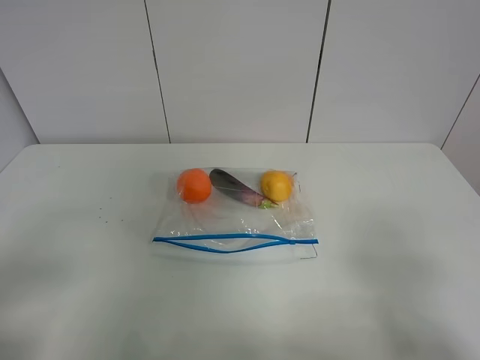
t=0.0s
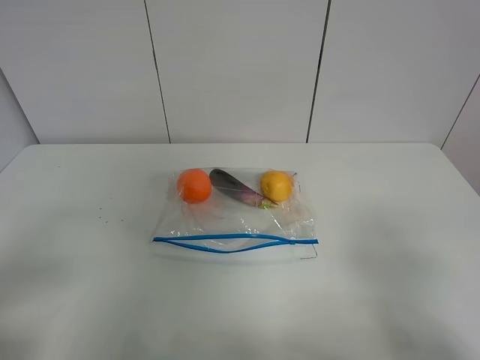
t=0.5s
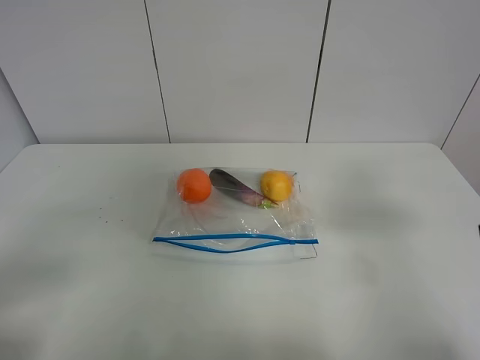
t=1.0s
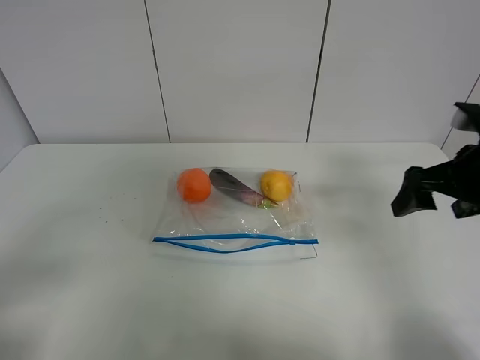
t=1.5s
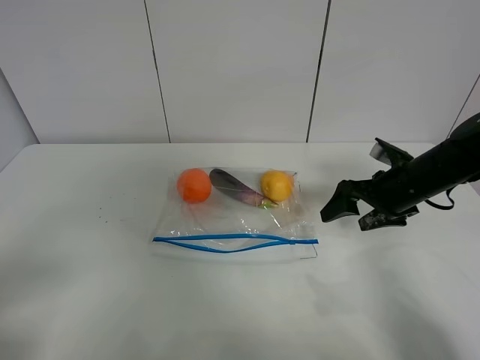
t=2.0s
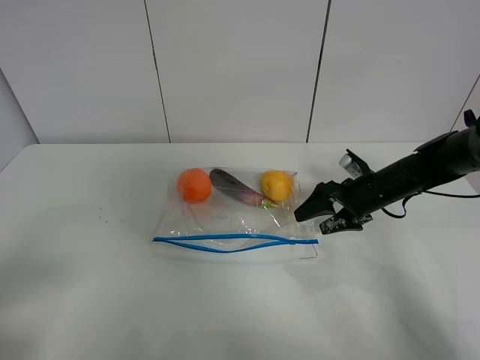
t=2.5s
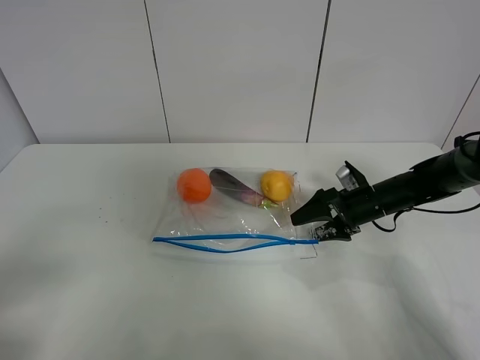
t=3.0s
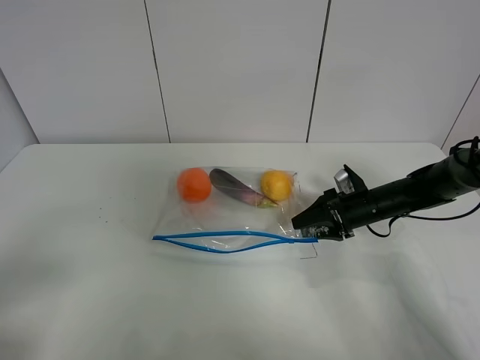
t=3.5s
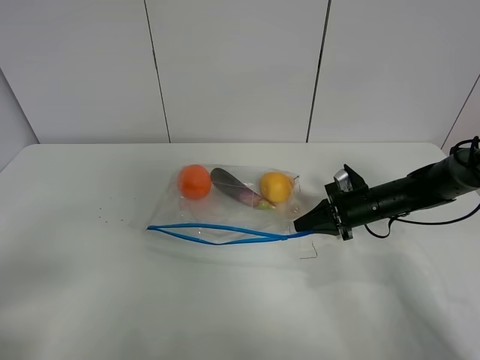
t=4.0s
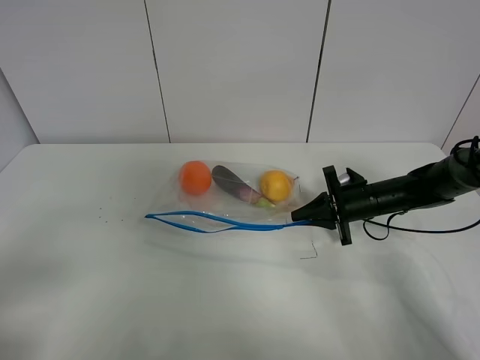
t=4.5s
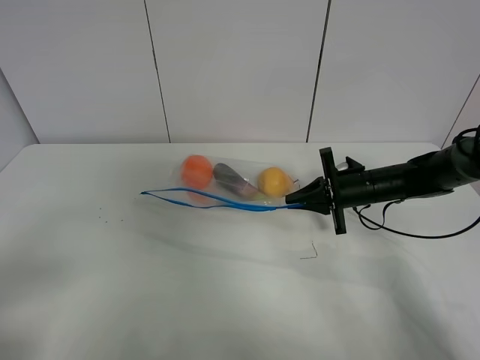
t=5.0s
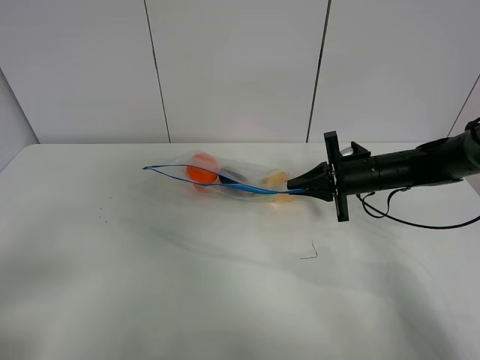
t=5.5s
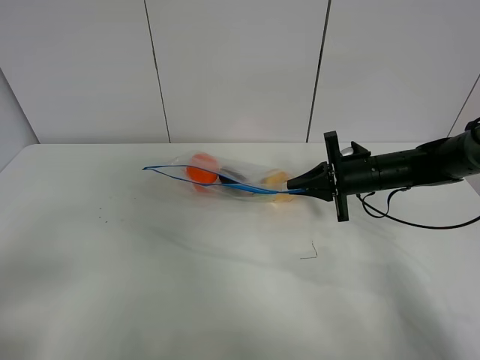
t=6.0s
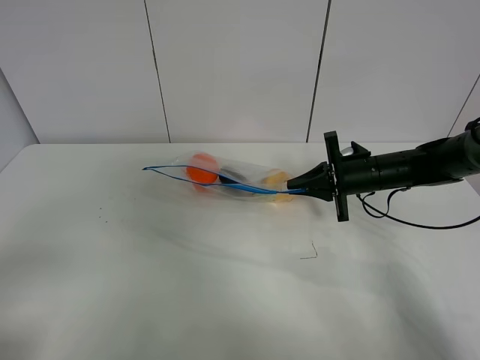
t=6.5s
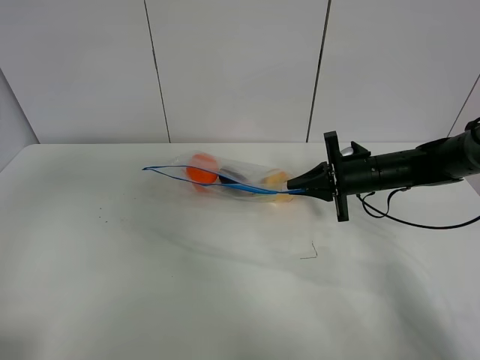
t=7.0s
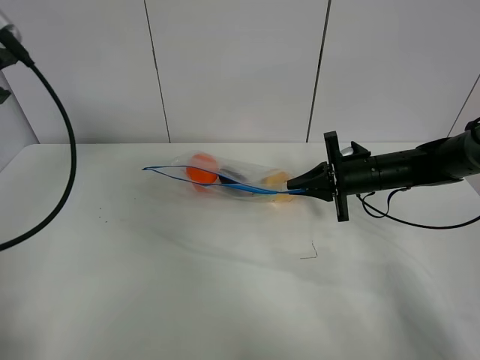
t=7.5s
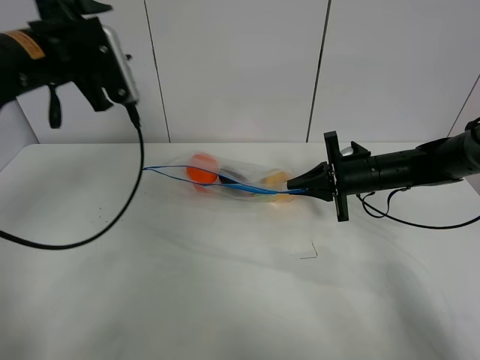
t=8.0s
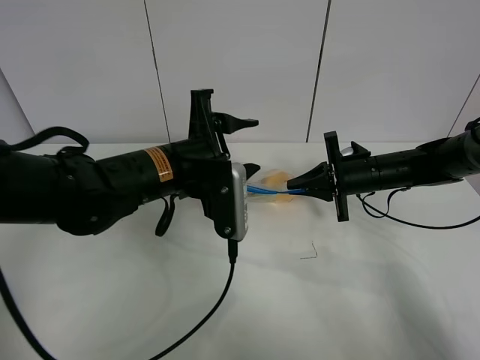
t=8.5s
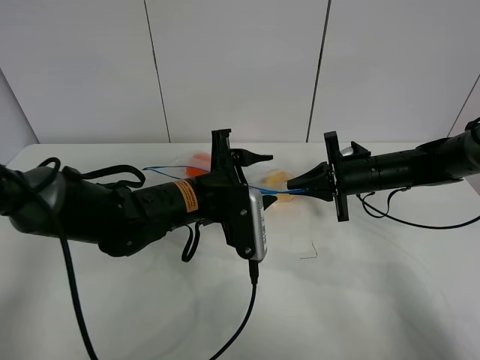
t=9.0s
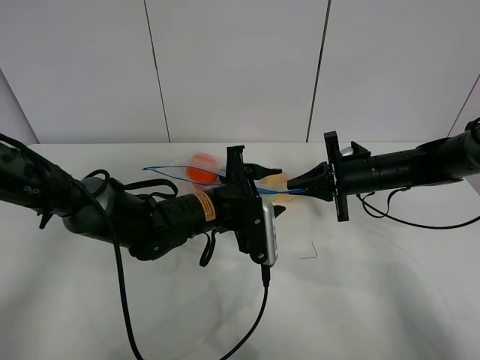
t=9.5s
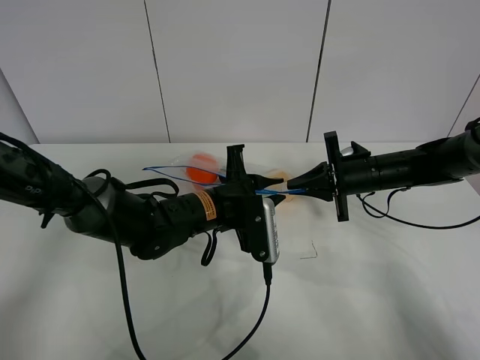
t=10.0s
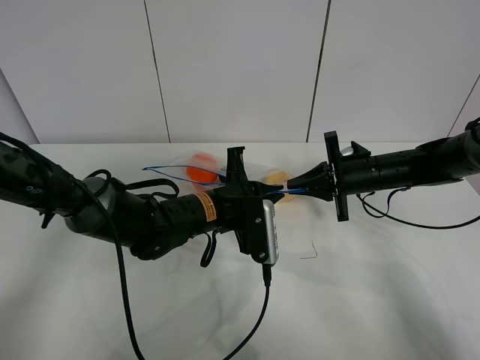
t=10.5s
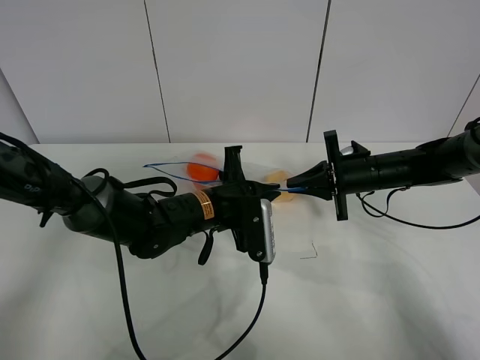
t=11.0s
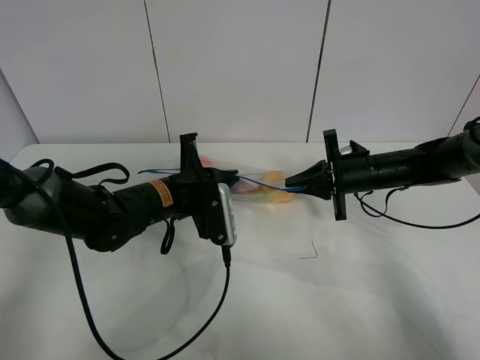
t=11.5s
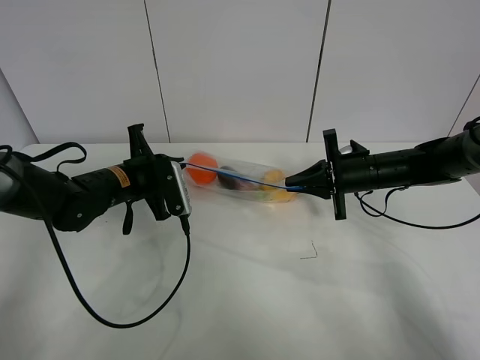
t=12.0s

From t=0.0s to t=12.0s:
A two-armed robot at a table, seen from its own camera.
Step, from t=0.0s to t=3.5s: Grasp the fruit bag with right gripper.
Step, from t=4.0s to t=5.5s: Lift the fruit bag with your right gripper.
From t=0.0s to t=2.0s: The right gripper goes approximately 30 cm forward.
From t=2.0s to t=4.0s: The right gripper travels downward by about 10 cm, and closes up.
From t=4.0s to t=6.0s: The right gripper shifts approximately 5 cm upward.
From t=6.0s to t=8.0s: The left gripper travels forward by some 30 cm.
From t=8.0s to t=10.0s: The left gripper heads downward and to the right, covering roughly 25 cm, and closes its fingers.
From t=10.0s to t=12.0s: The left gripper shifts roughly 15 cm to the left, and closes up.

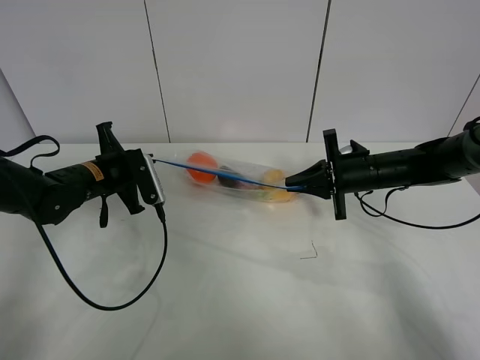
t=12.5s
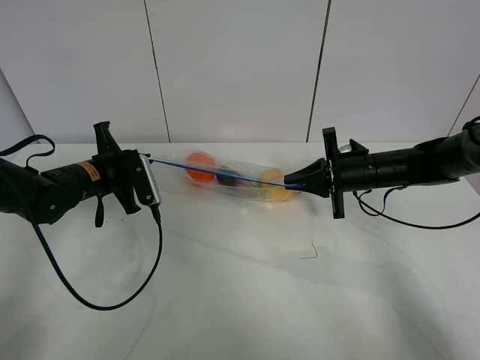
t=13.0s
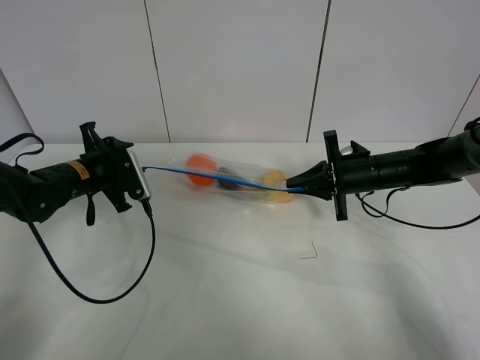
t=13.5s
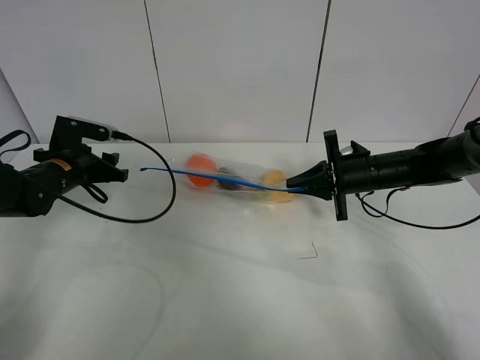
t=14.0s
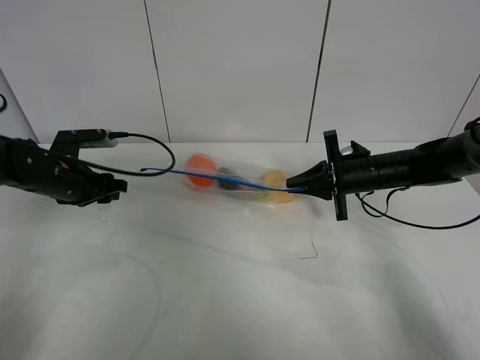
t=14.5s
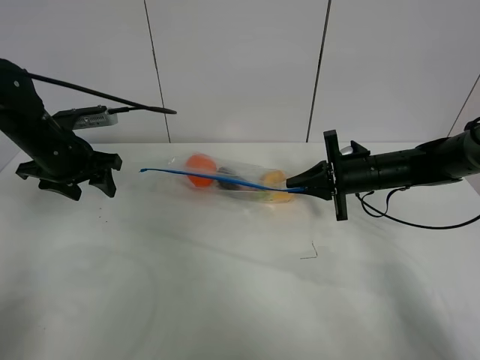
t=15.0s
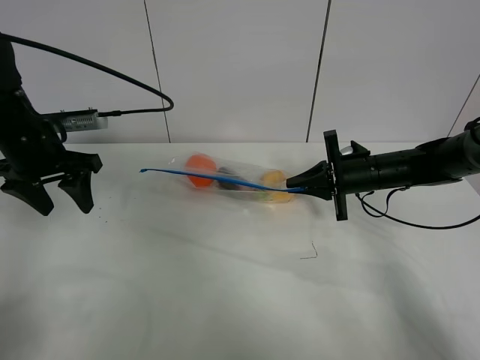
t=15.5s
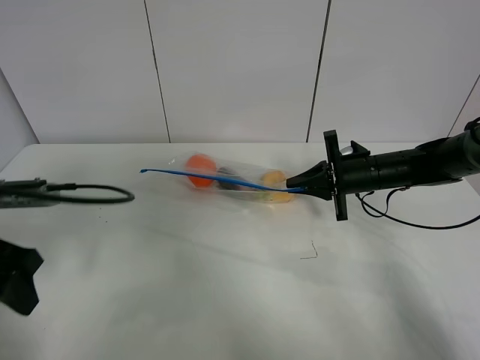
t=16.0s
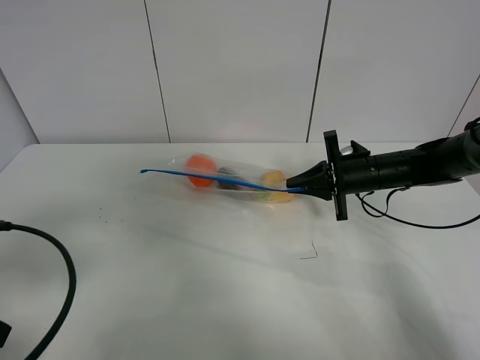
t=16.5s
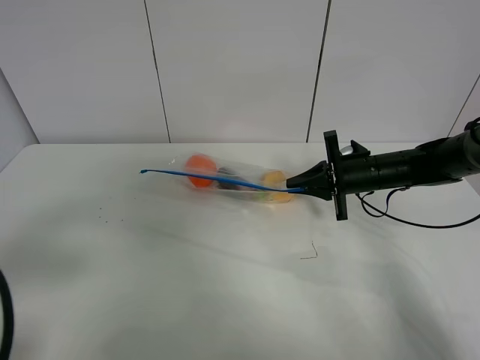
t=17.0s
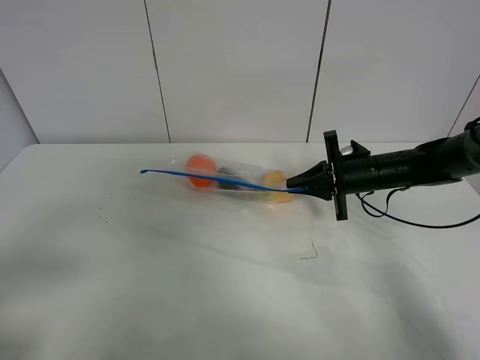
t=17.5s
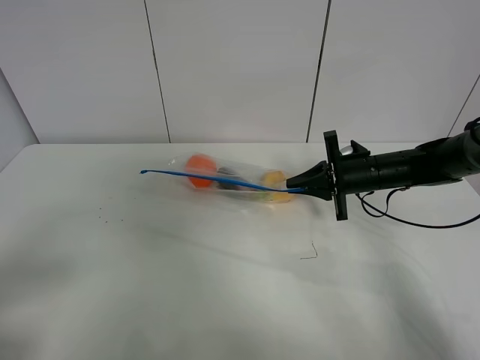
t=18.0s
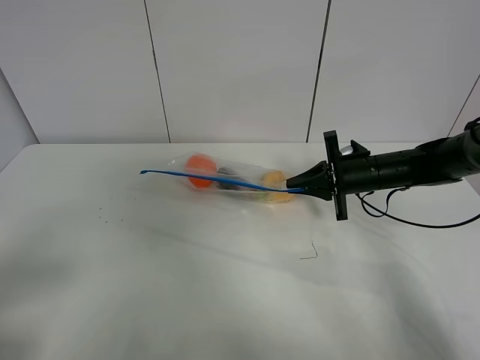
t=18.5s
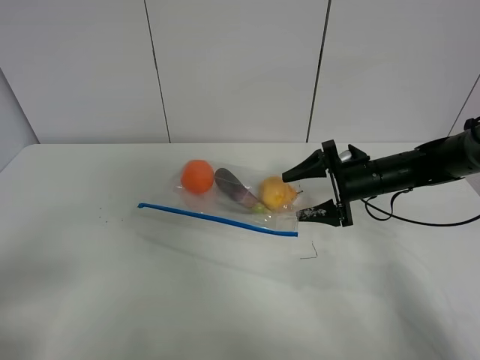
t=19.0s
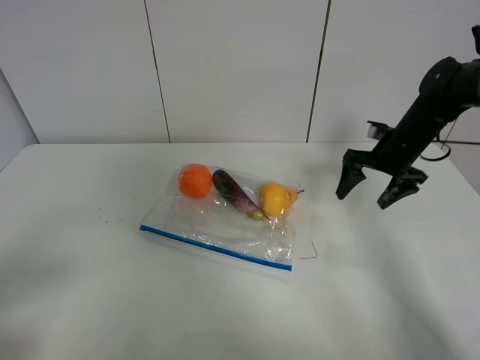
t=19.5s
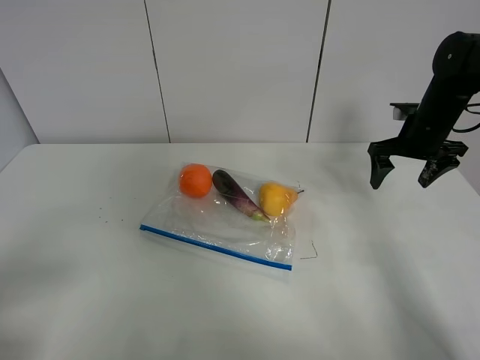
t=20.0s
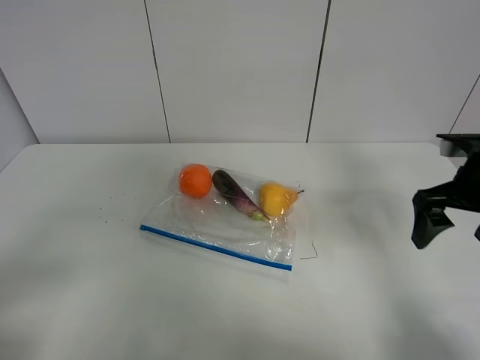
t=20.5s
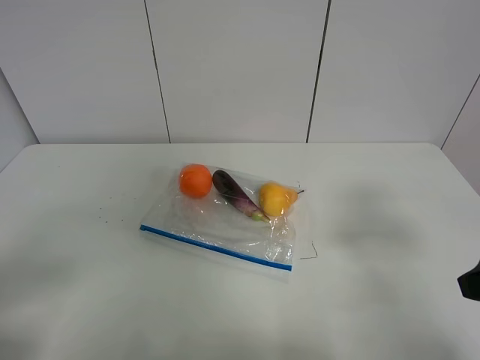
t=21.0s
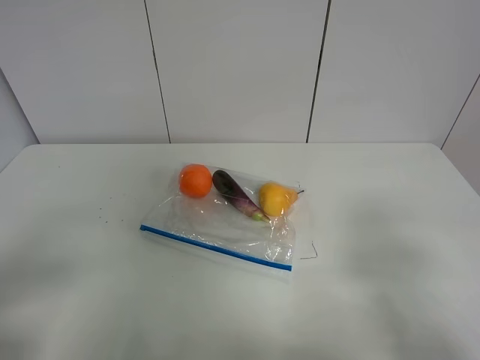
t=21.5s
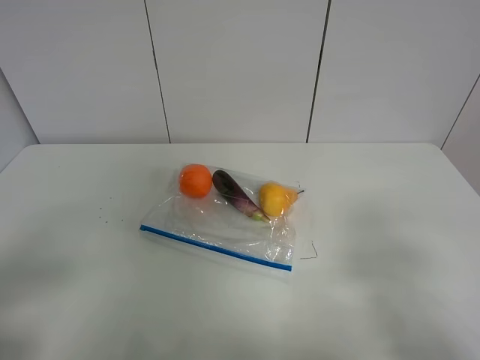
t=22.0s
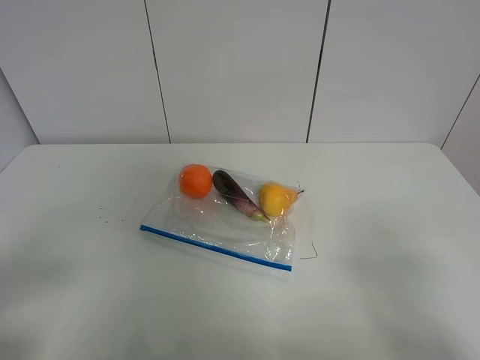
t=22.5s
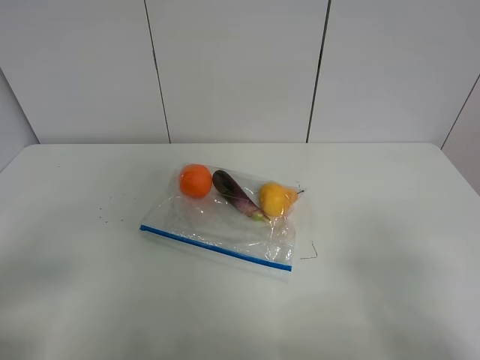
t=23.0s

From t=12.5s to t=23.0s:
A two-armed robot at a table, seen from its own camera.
From t=12.5s to t=14.5s: The left gripper goes roughly 5 cm to the left, and opens up.
From t=14.5s to t=16.5s: The left gripper goes some 25 cm backward.
From t=16.5s to t=19.0s: The right gripper opens up, while the left gripper shifts approximately 10 cm backward.
From t=19.0s to t=21.0s: The right gripper moves backward and upward, some 30 cm.

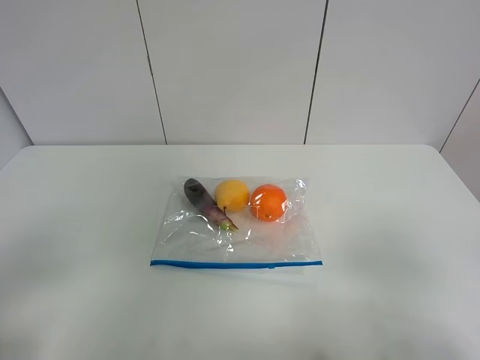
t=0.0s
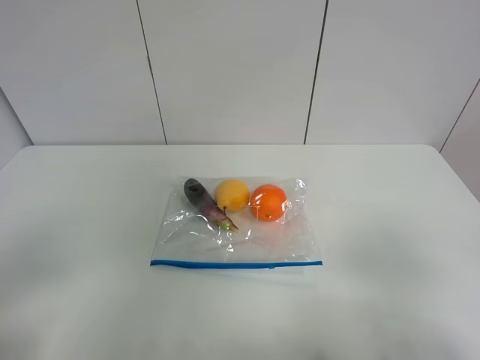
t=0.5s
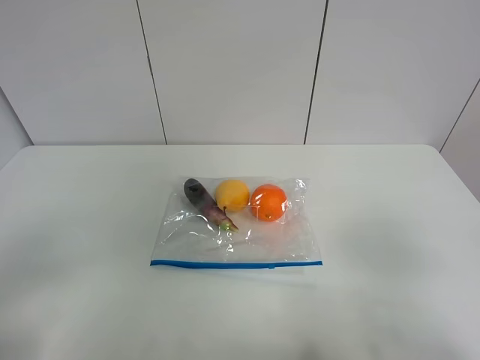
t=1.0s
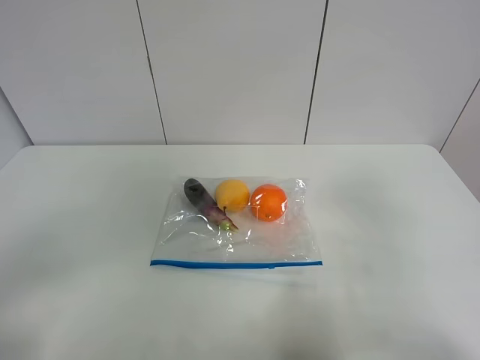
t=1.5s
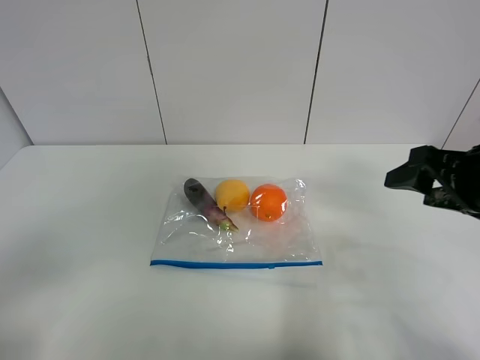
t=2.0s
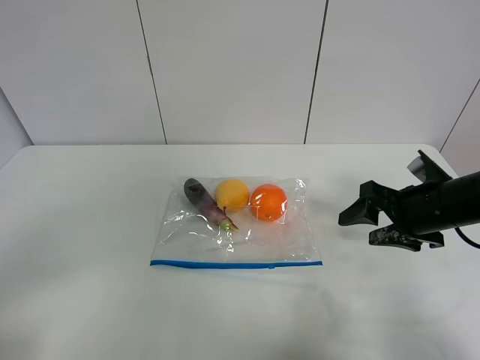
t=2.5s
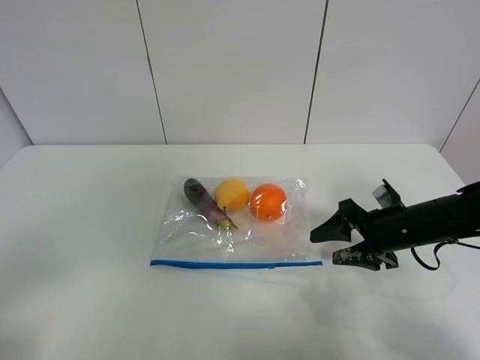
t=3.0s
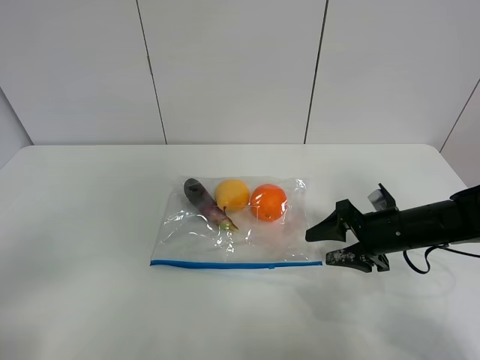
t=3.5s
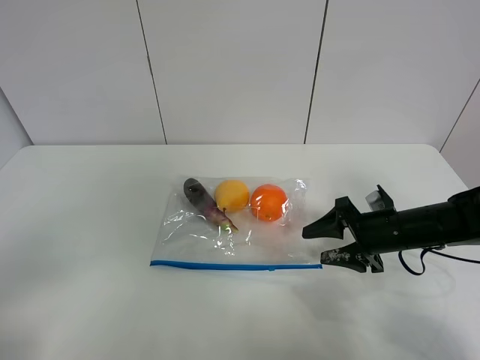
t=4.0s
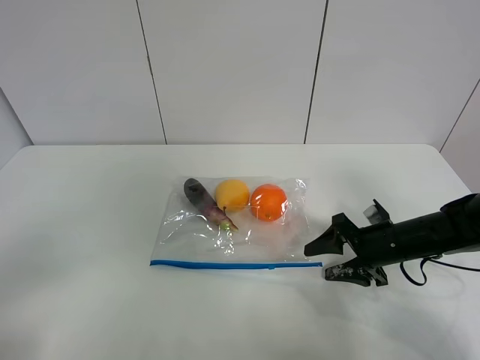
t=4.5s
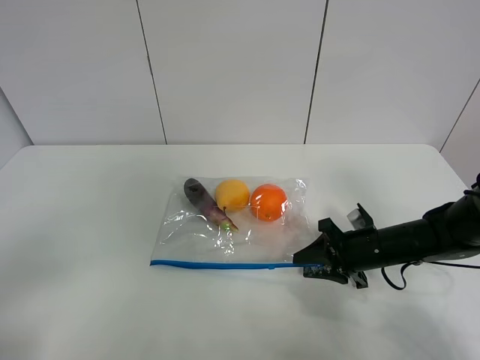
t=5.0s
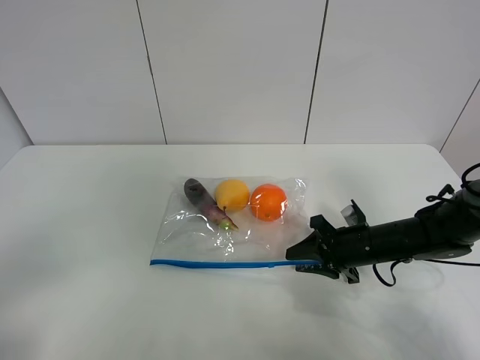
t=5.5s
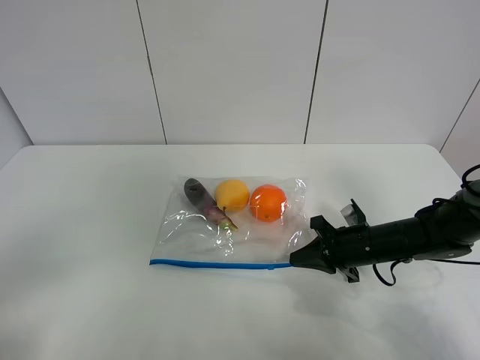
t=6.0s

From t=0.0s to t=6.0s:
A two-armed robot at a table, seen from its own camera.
Step, from t=0.0s to t=5.5s: Grasp the fruit bag with right gripper.
From t=0.0s to t=2.0s: The right gripper moves forward, some 20 cm.
From t=2.0s to t=4.0s: The right gripper goes approximately 15 cm downward.
From t=4.0s to t=6.0s: The right gripper closes up.
